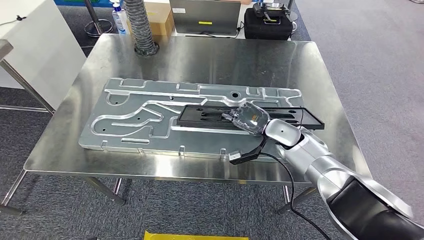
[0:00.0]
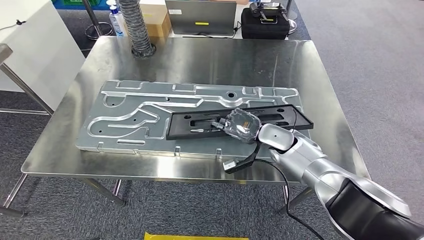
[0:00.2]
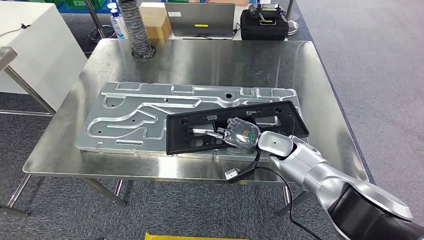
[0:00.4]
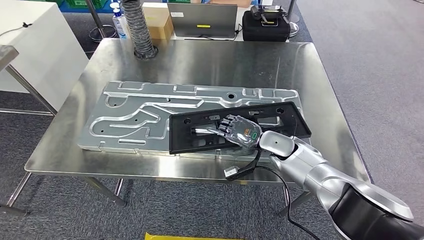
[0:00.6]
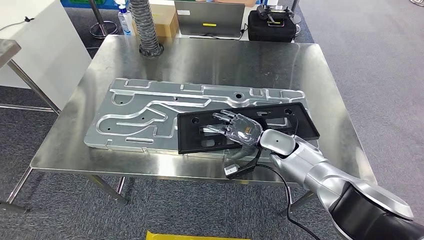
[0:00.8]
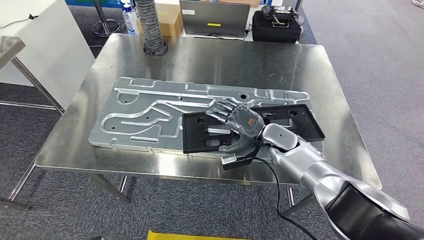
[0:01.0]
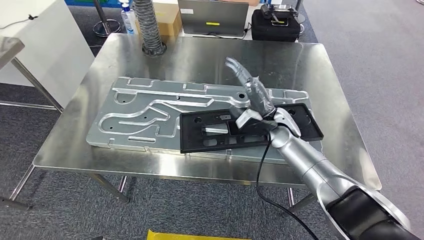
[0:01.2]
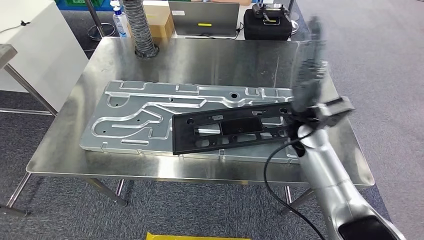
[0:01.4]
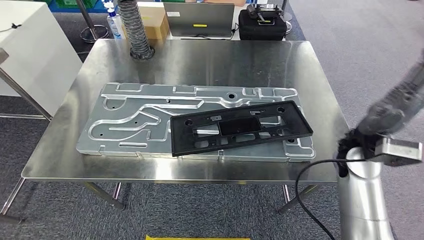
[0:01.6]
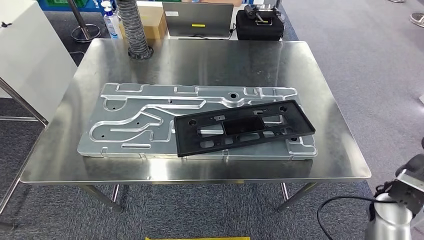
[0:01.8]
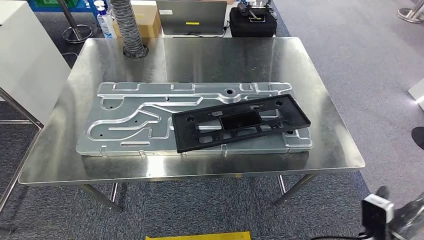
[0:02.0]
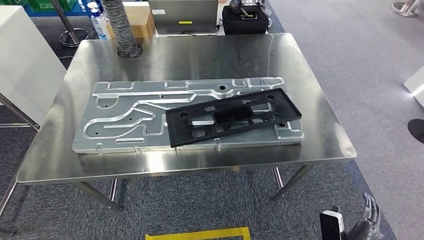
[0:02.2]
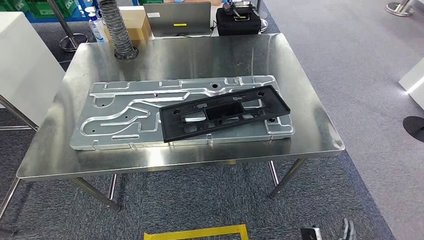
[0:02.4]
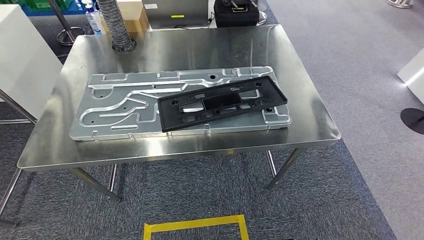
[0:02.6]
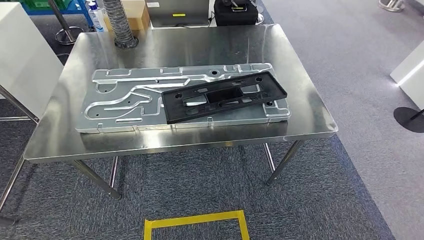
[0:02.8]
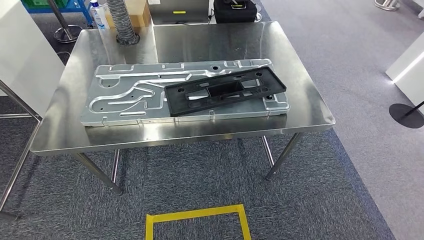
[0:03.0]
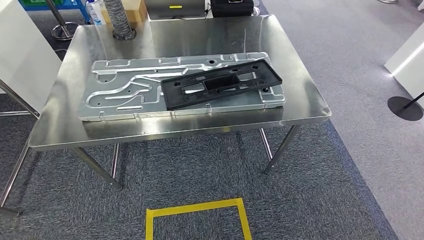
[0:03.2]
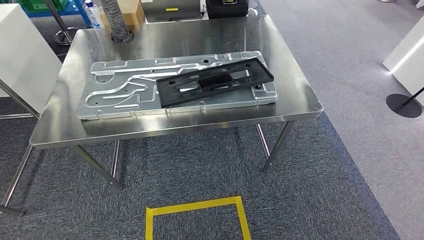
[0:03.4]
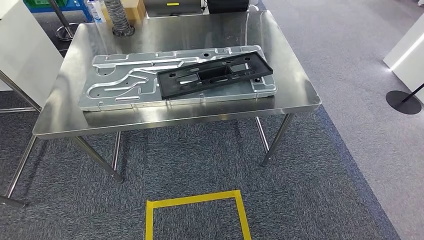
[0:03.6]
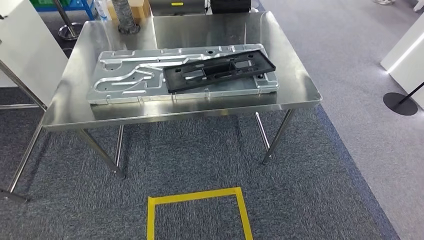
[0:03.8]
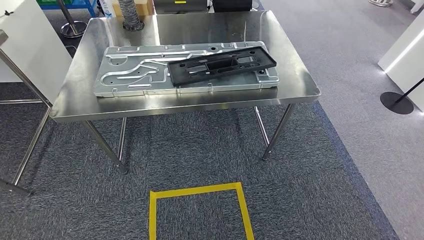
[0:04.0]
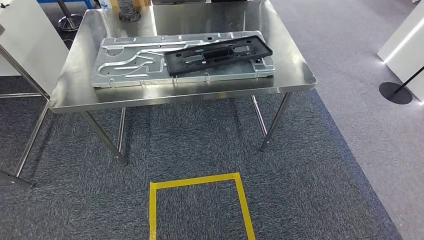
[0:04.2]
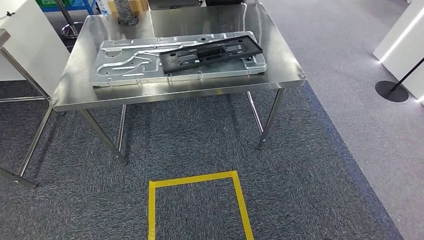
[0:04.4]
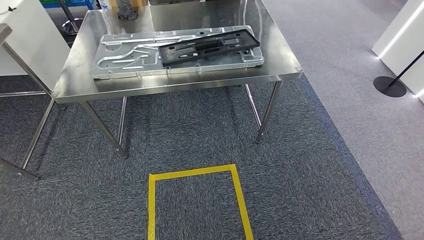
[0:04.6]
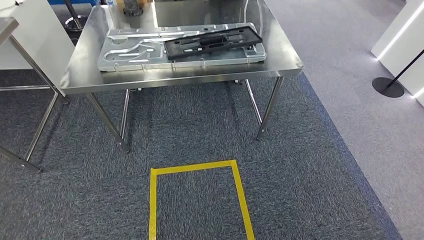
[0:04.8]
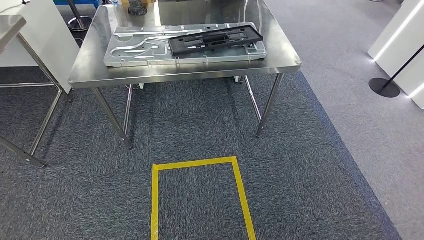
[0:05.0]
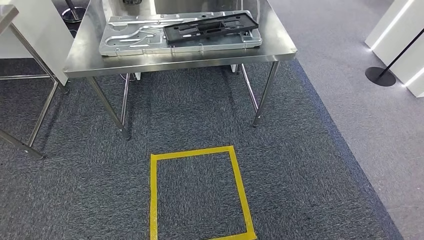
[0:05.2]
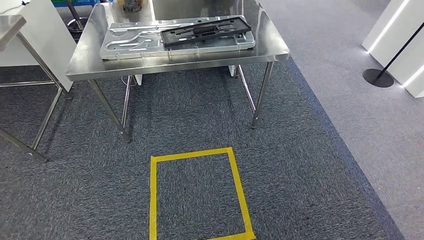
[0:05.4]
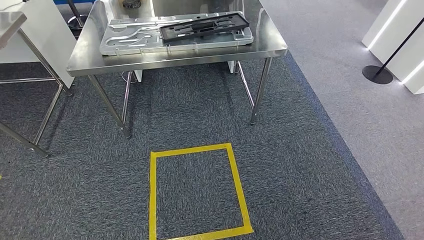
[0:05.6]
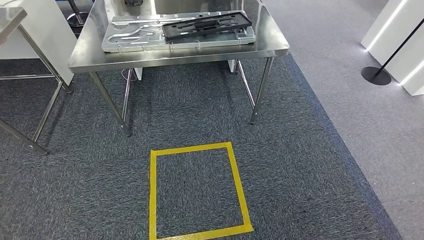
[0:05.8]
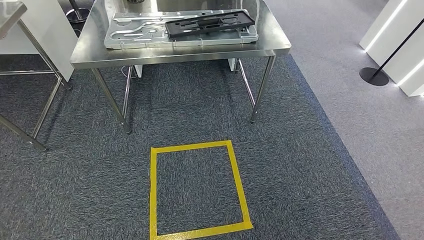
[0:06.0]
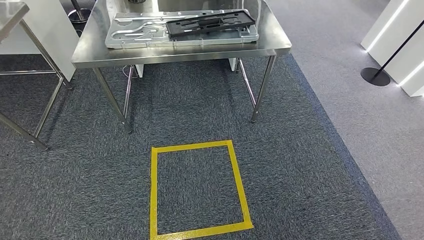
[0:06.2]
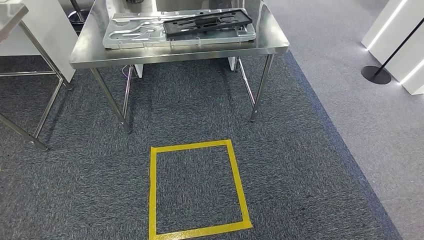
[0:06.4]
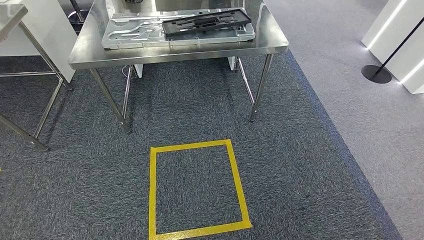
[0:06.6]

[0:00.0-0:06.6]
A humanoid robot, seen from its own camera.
Step, 0:02.4 to 0:06.6: Move to the initial position of the shelf.
